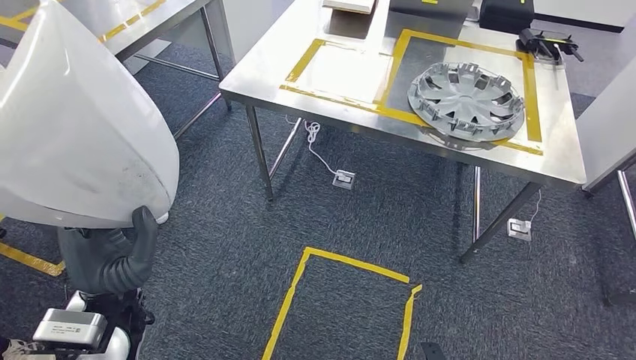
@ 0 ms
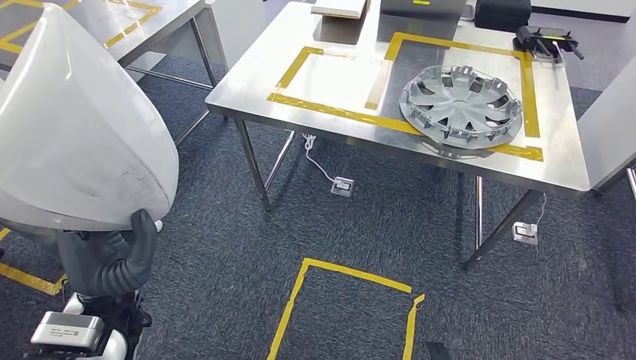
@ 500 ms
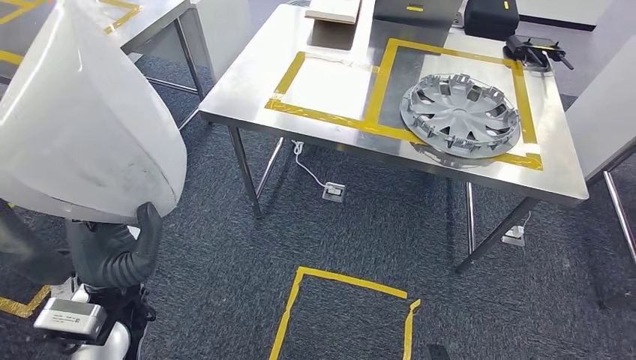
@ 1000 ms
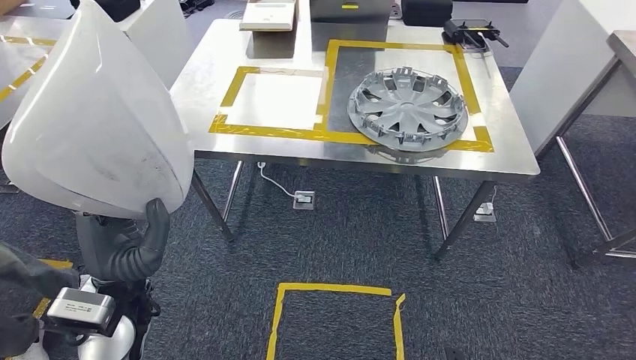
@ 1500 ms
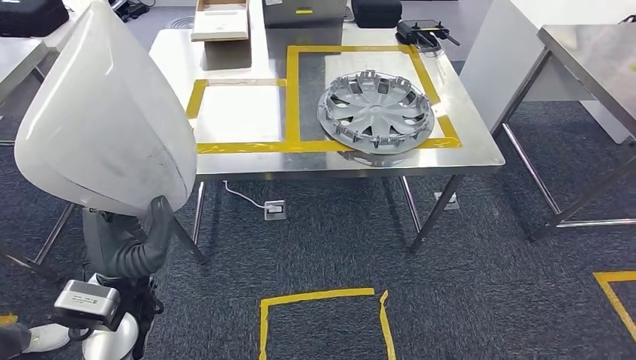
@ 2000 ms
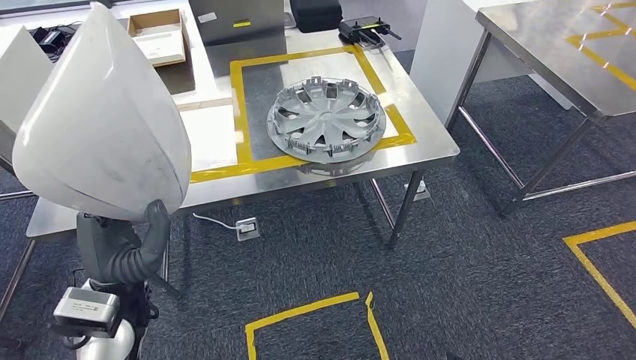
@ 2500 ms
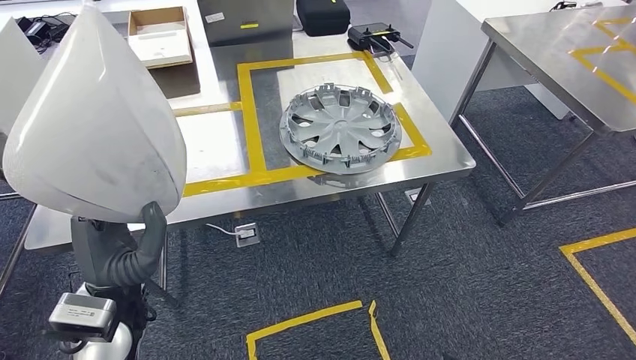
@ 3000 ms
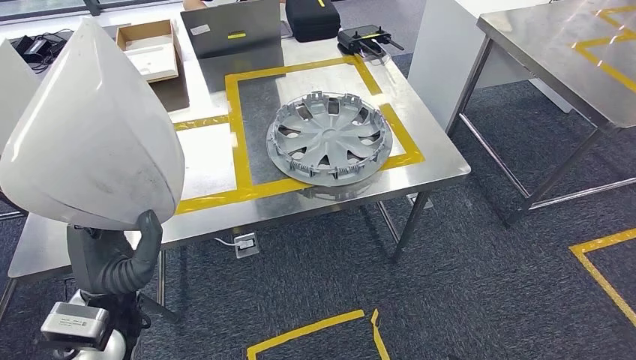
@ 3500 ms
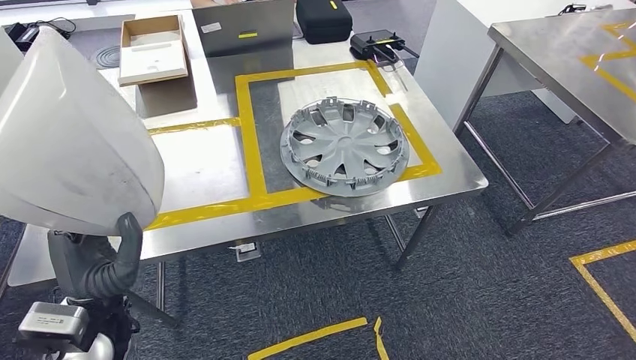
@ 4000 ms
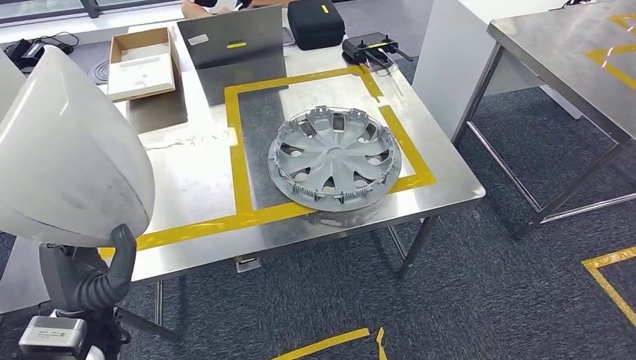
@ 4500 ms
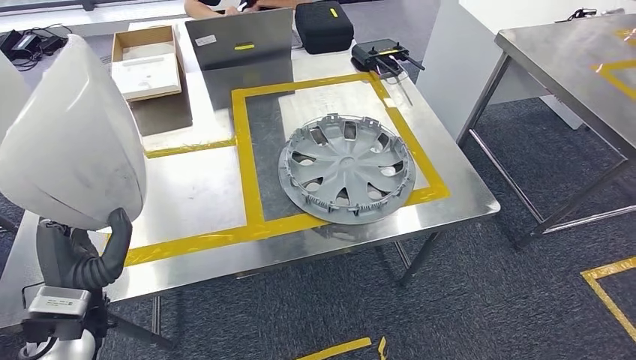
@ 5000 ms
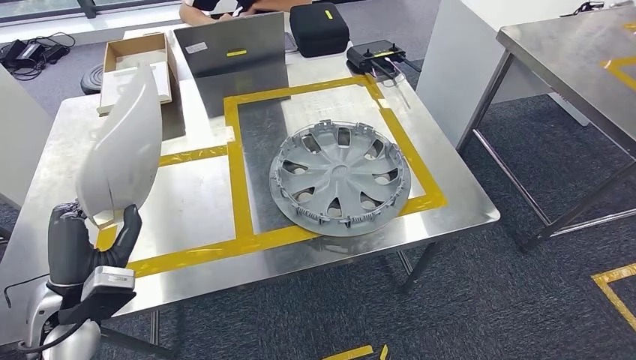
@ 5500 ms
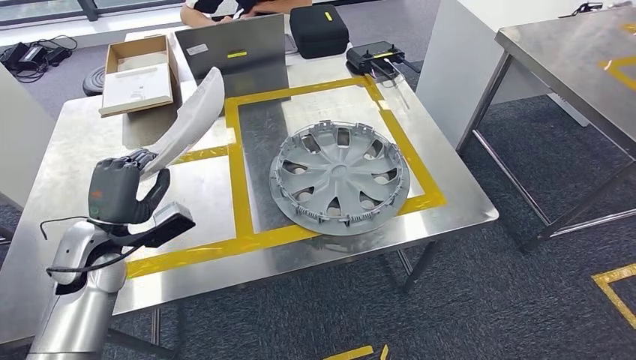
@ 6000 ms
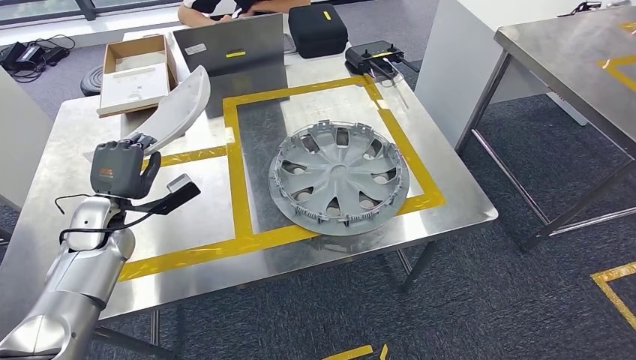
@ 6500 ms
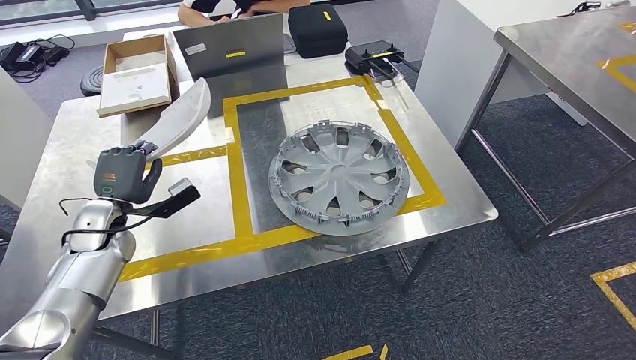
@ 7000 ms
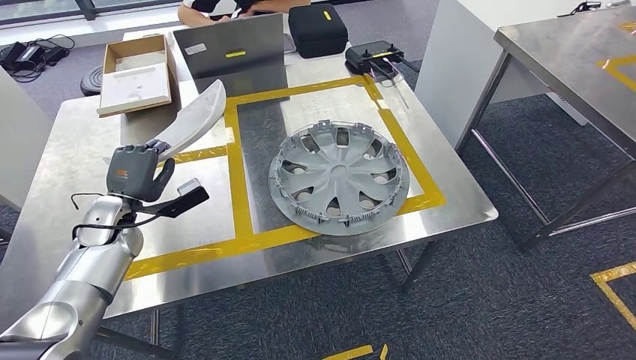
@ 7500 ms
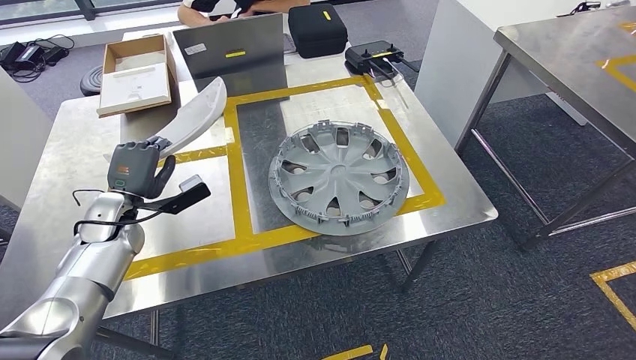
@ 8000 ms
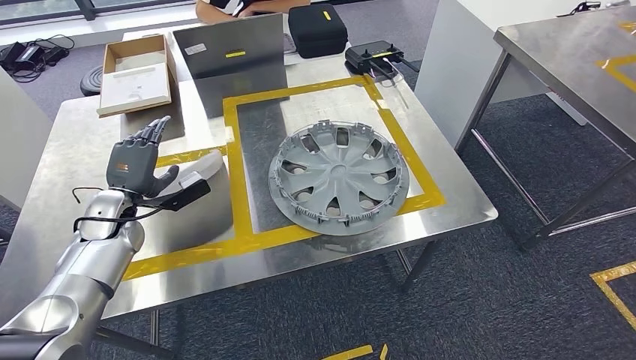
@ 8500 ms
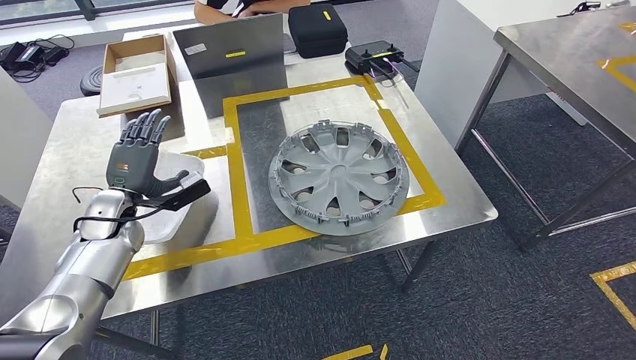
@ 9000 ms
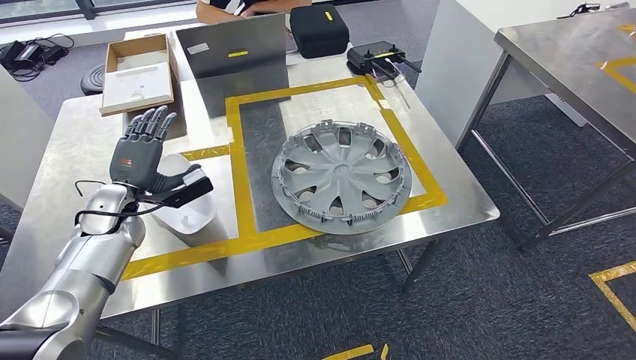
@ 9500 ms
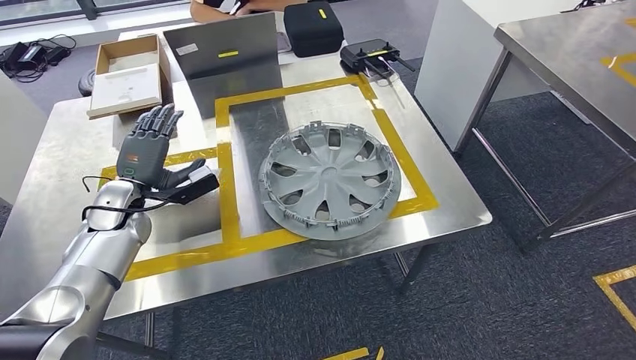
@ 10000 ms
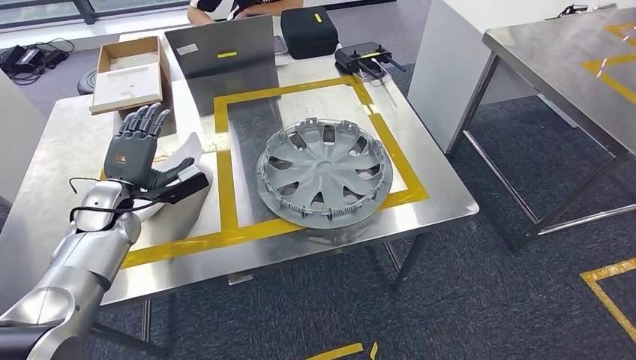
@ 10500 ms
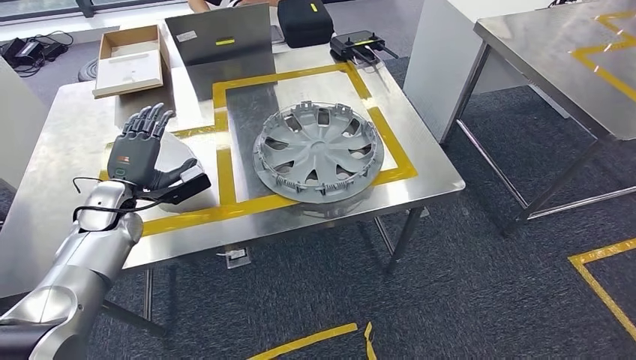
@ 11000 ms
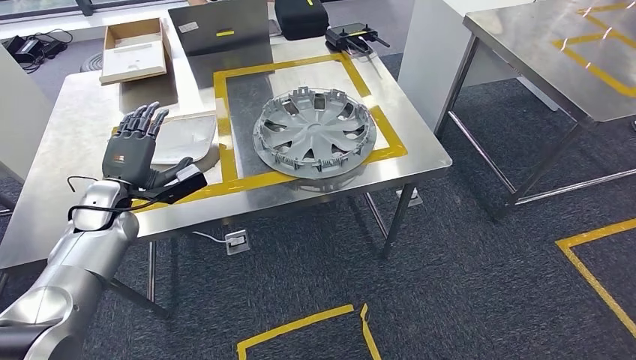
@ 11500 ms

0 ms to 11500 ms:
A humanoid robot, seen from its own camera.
Step, 0 ms to 4500 ms: Move the small parts to the workbench.
Step, 5500 ms to 9500 ms: Insert the small parts into the corresponding slots on the workbench.
6000 ms to 7500 ms: The left hand is displaced forward by some 5 cm.
7500 ms to 9500 ms: There are only small adjustments of the hands.

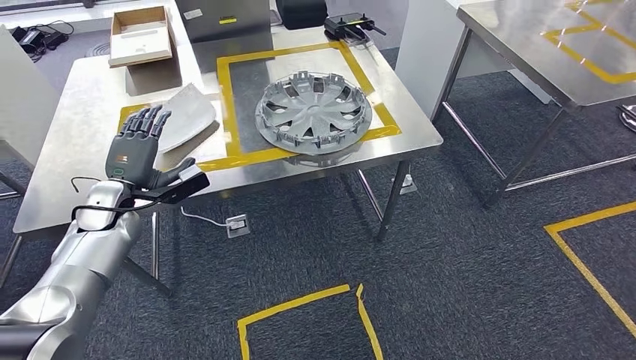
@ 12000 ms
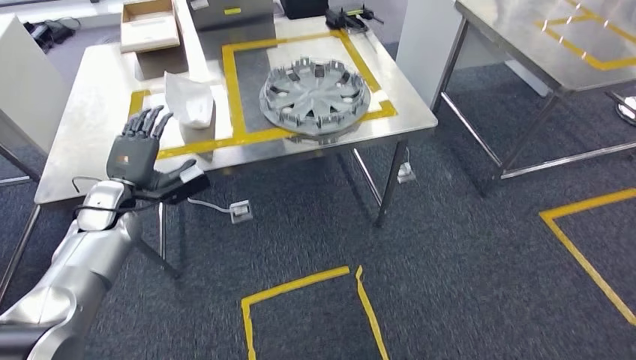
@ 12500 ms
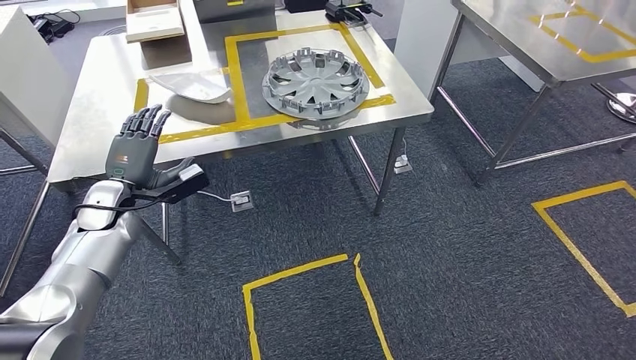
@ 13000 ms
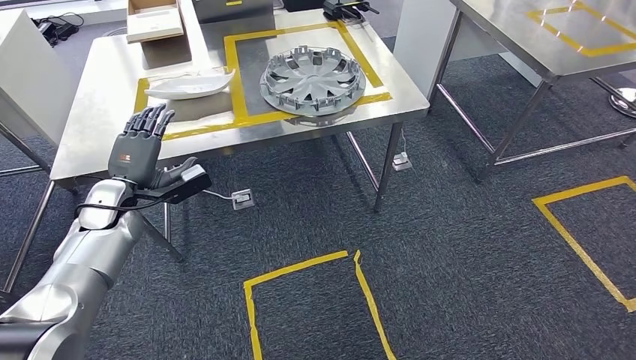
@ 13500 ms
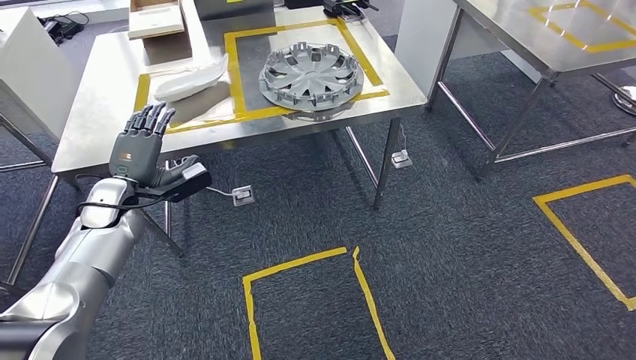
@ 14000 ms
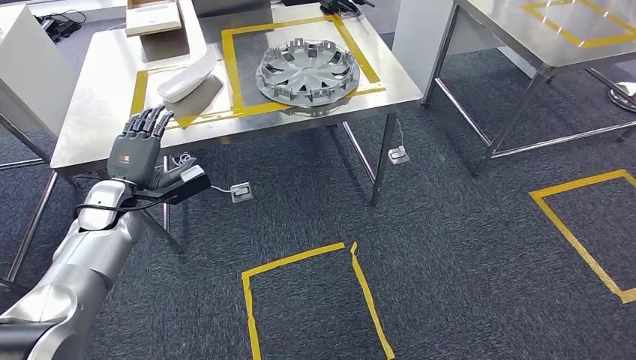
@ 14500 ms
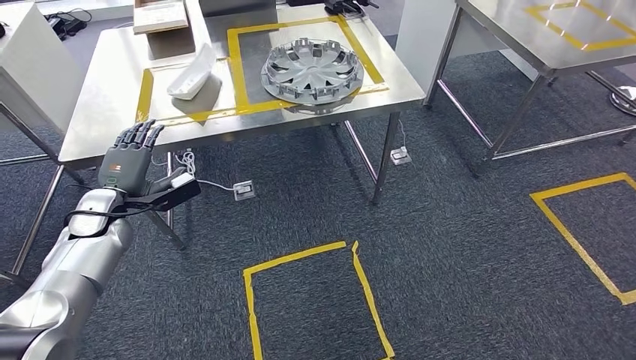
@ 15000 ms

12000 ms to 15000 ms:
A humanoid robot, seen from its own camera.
Step, 12000 ms to 15000 ms: Return to the initial position at the workbench.

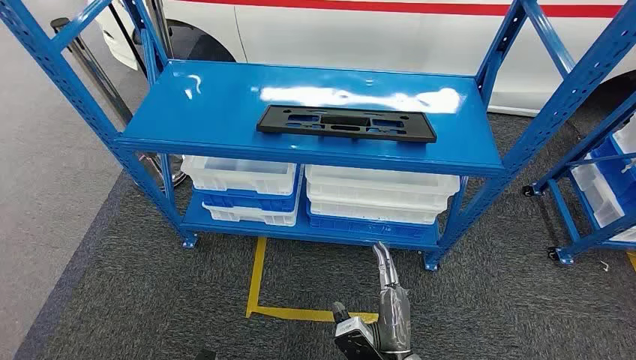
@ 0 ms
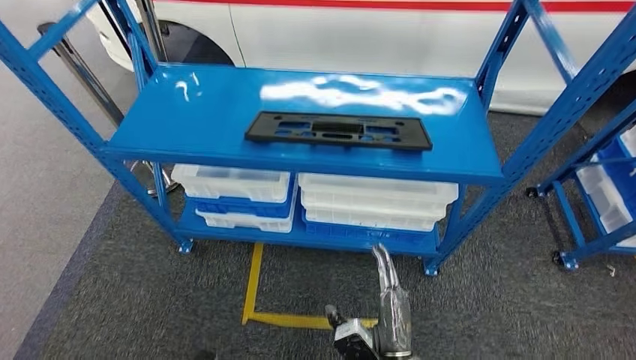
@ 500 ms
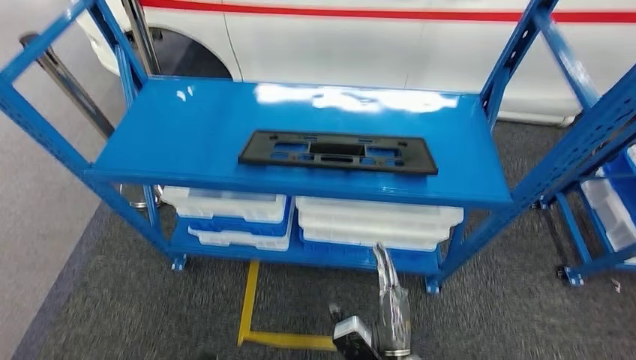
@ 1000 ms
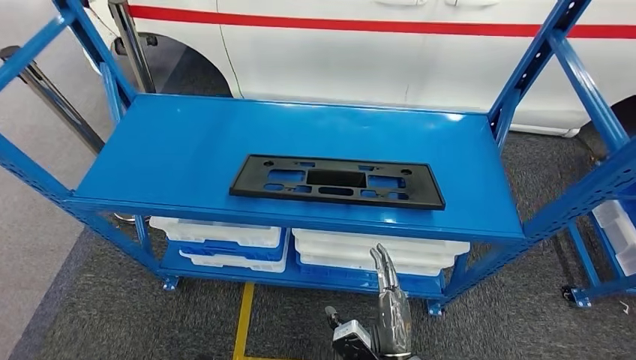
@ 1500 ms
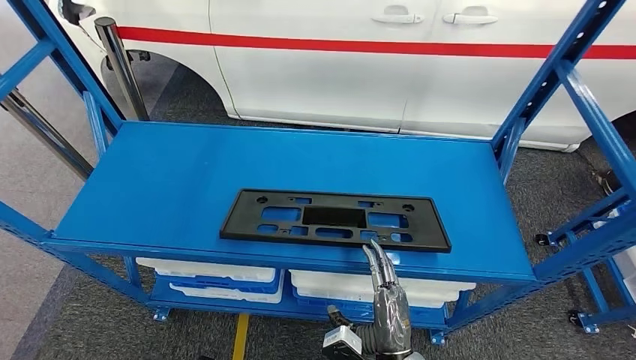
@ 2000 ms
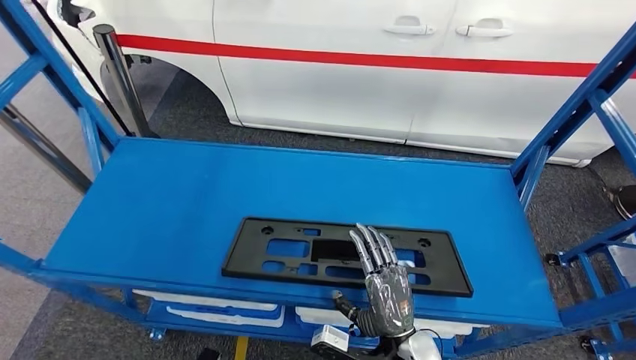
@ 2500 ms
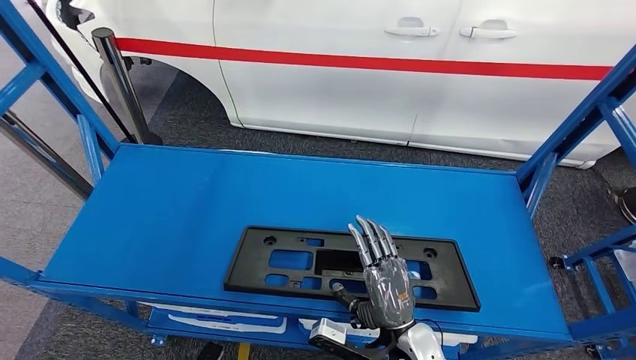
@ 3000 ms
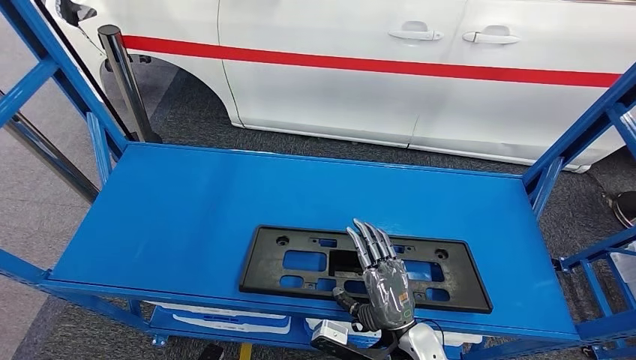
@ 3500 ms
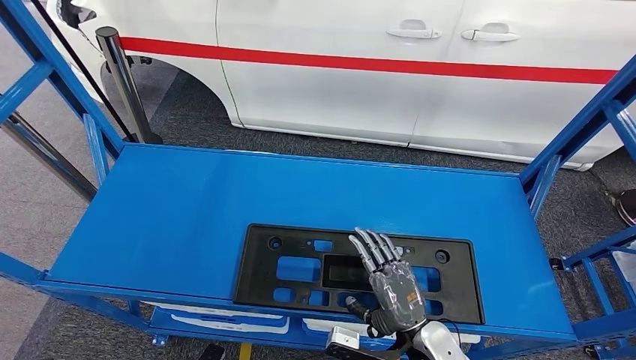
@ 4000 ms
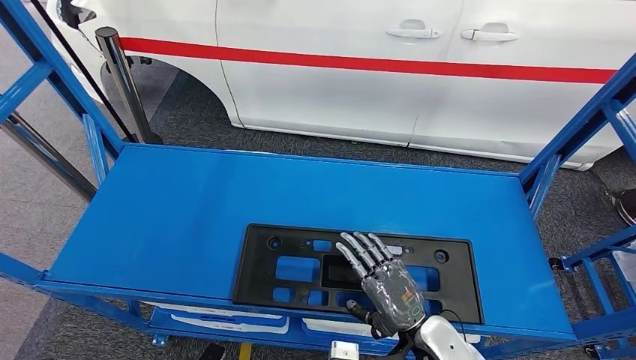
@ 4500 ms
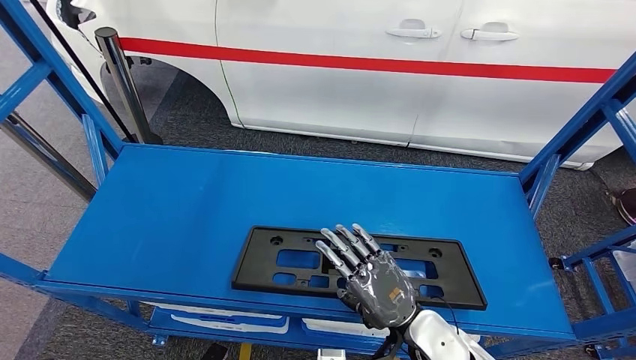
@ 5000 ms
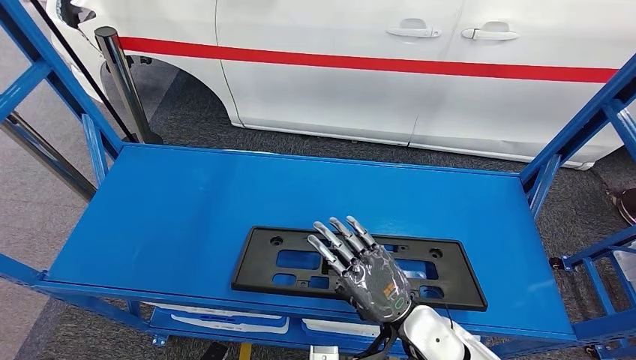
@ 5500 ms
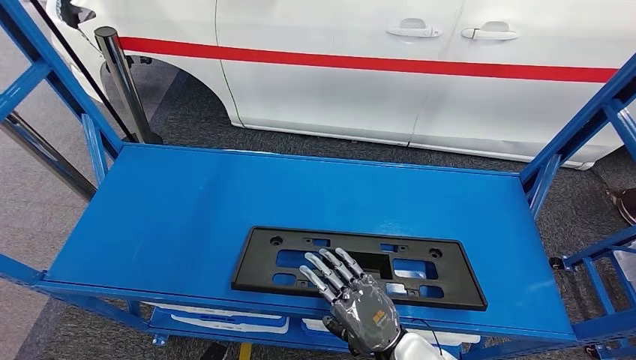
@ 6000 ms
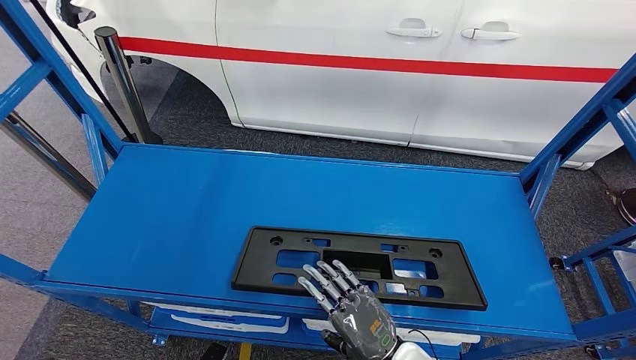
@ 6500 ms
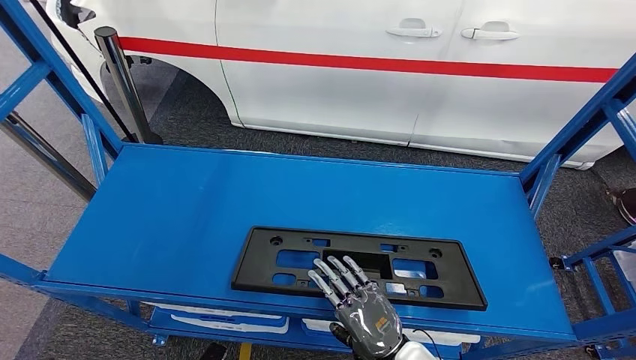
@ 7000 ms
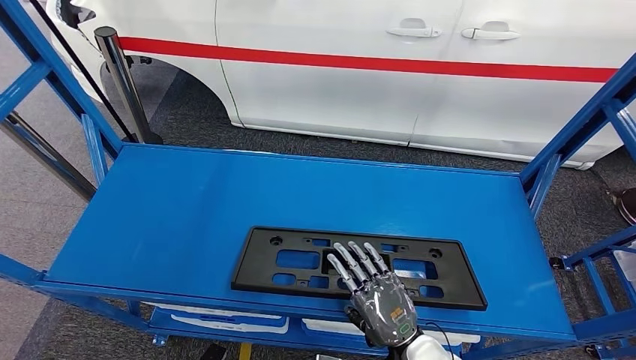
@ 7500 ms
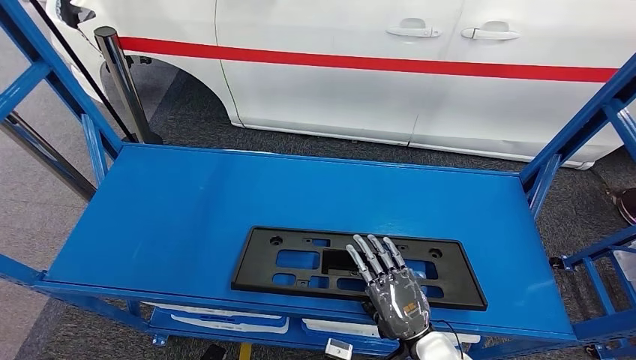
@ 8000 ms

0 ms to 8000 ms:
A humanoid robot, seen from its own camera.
6000 ms to 8000 ms: The hands make only small movements.
